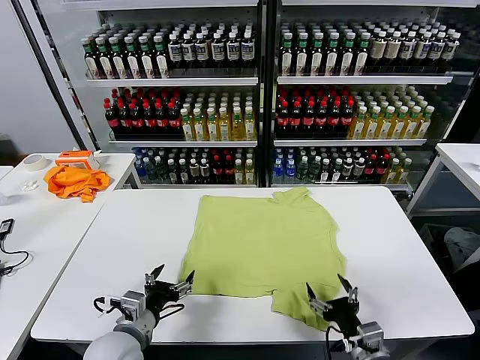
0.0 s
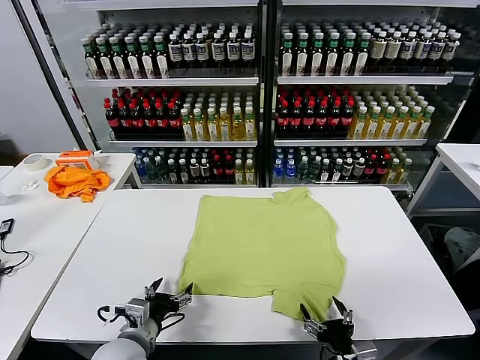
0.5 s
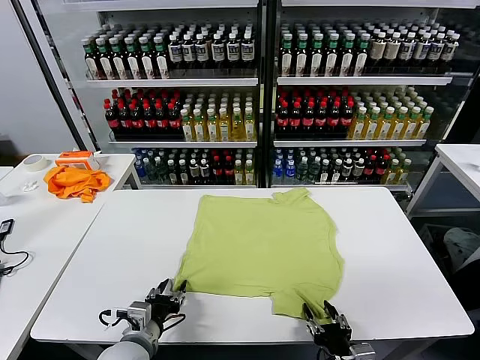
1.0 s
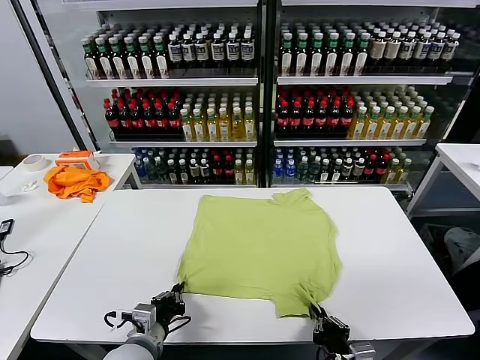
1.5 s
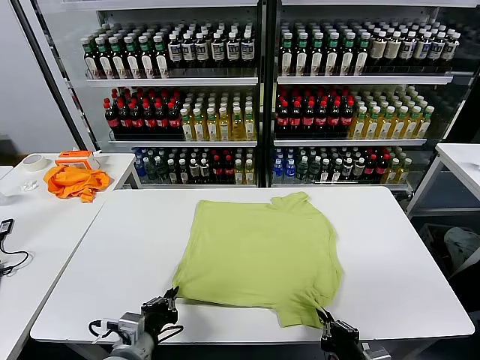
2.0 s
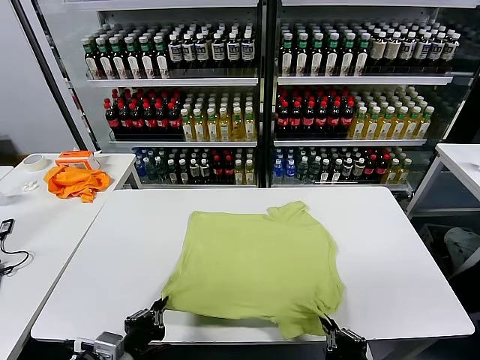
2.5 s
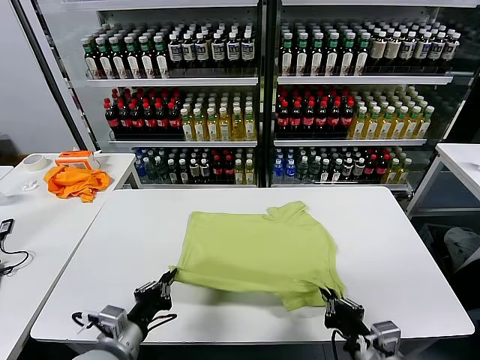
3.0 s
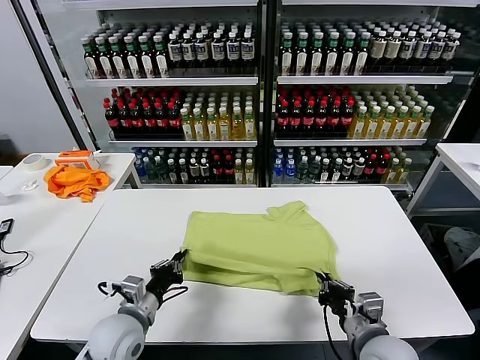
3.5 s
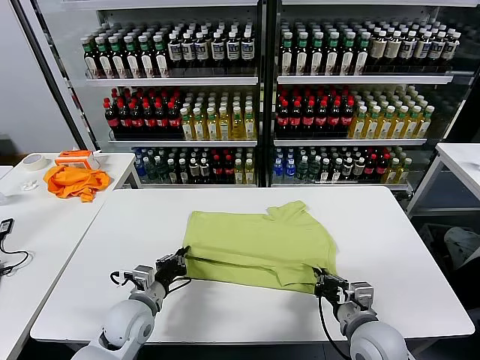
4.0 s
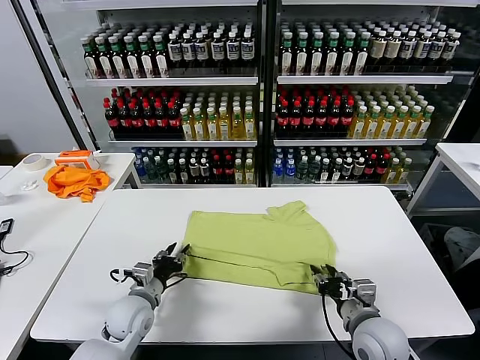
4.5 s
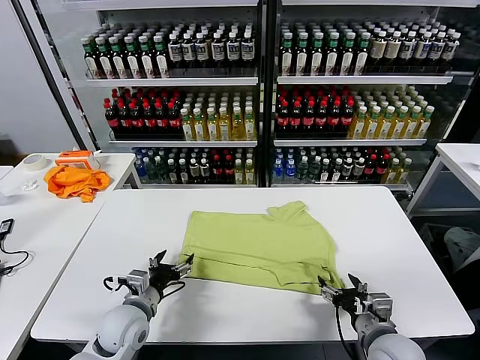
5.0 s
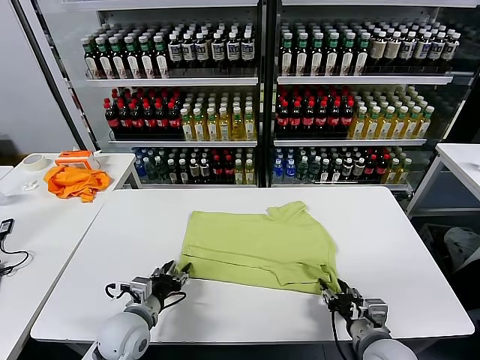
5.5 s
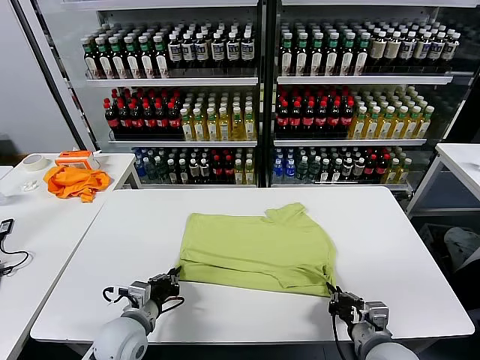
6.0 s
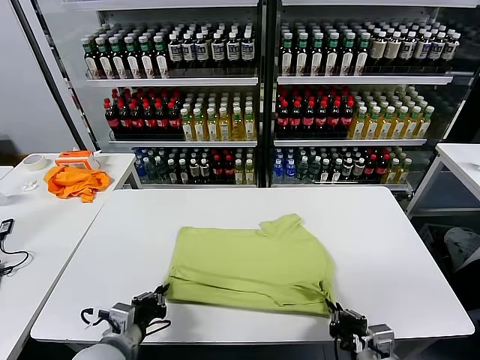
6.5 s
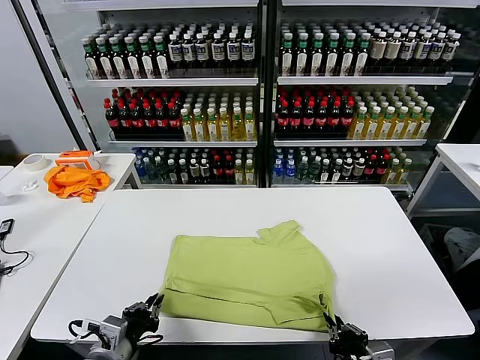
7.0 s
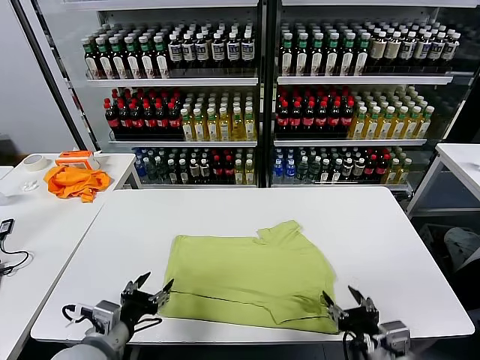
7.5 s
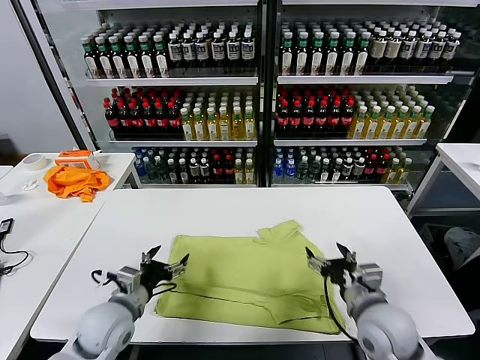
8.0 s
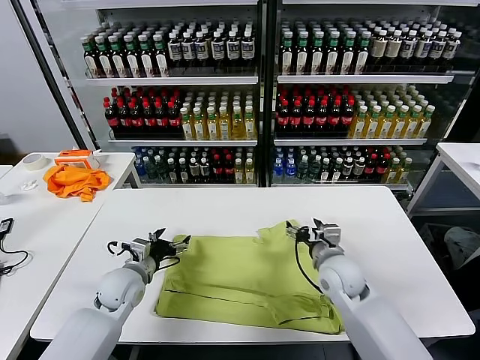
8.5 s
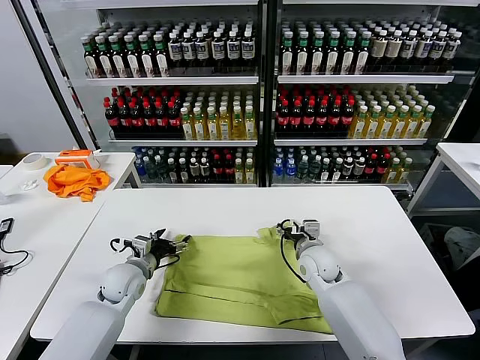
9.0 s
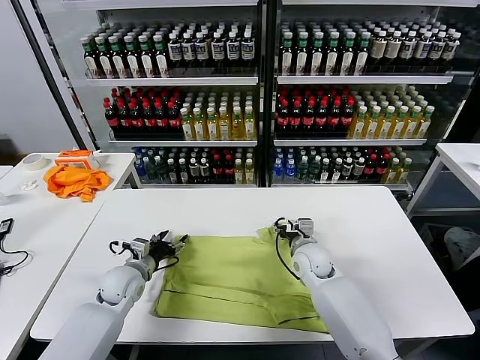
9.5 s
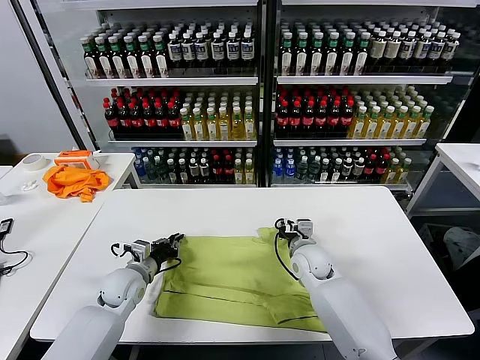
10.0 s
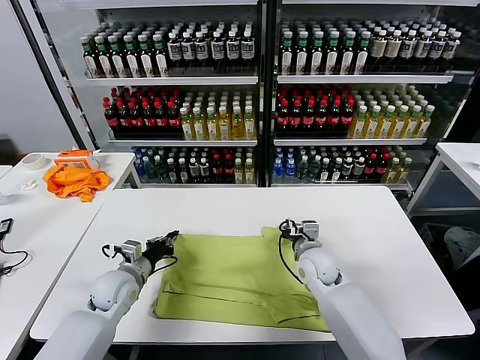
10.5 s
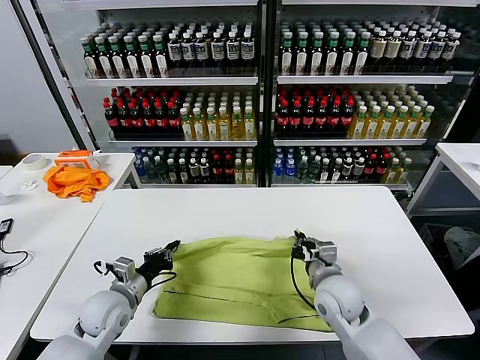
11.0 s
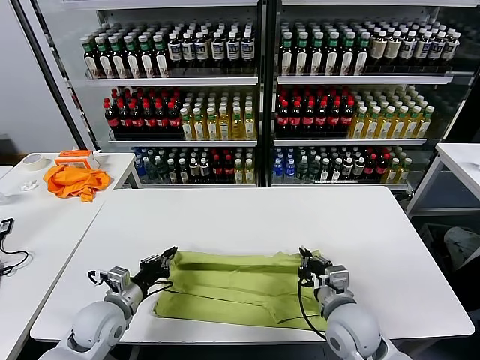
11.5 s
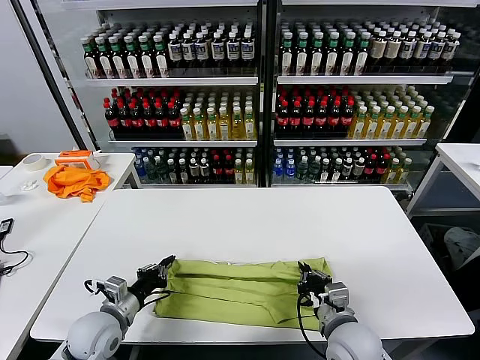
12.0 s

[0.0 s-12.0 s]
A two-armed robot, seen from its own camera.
Task of the whole recording: fold and organize the clothes.
Step, 0.0 to 1.0 s: use both grippers simultaneously to clamp the lower edge of the clothing fabric.
Step, 1.5 to 4.0 s: use both grippers to drag the lower edge of the fabric forward and fold it over the upper edge.
Step, 5.0 to 7.0 s: Drag the clothes downward with both gripper.
Step, 7.5 to 10.0 s: use both grippers simultaneously to clamp the upper edge of the clothing fabric.
2.0 to 4.0 s: Both grippers move forward, approximately 15 cm.
4.0 to 6.0 s: The two grippers go some 5 cm backward. The left gripper opens, then closes once more. Meanwhile the right gripper opens, then closes again.
6.0 to 8.0 s: The left gripper reaches some 10 cm backward, then returns, and opens. Meanwhile the right gripper travels forward by approximately 10 cm, and opens.
8.0 to 10.0 s: The left gripper heads forward and downward, covering roughly 10 cm, and closes. Meanwhile the right gripper is displaced forward, downward and to the left by approximately 20 cm, and closes up.
10.0 to 12.0 s: The right gripper moves backward, about 20 cm. The left gripper is displaced backward by roughly 10 cm.

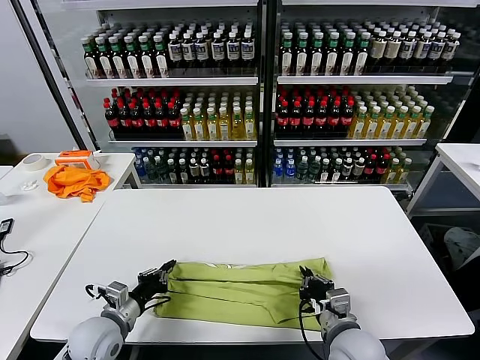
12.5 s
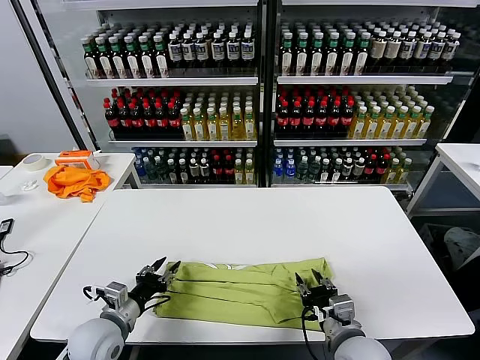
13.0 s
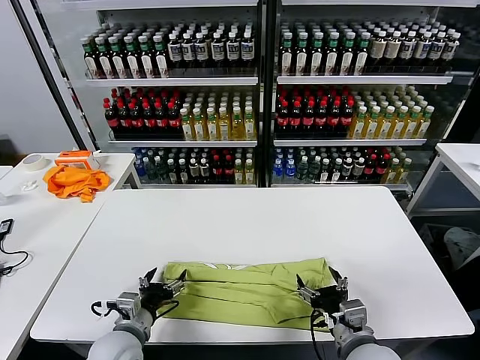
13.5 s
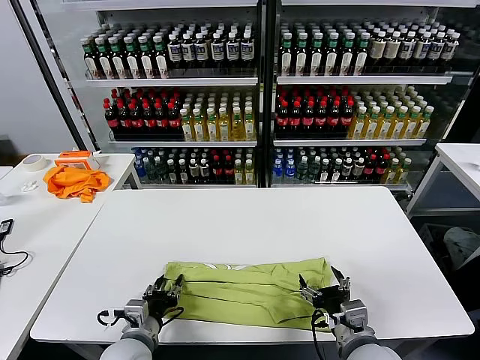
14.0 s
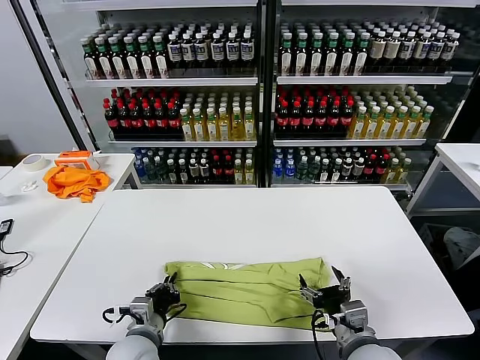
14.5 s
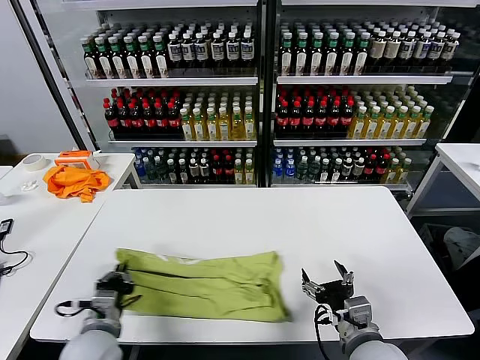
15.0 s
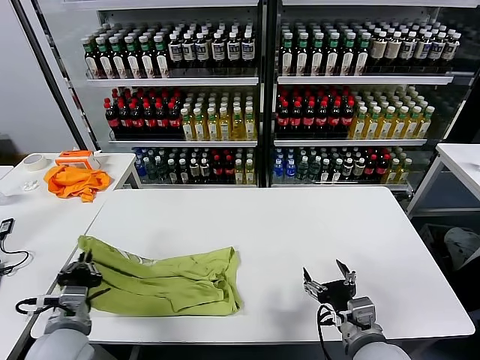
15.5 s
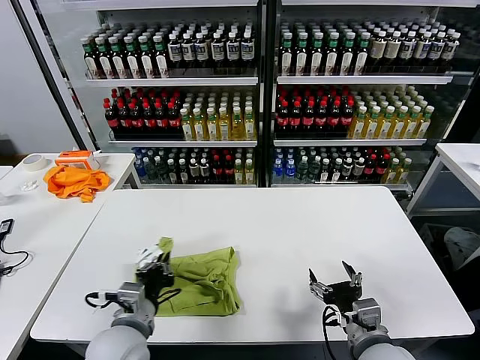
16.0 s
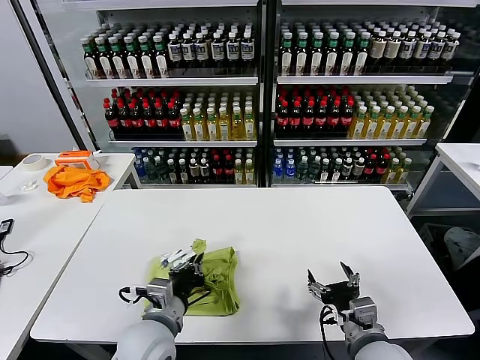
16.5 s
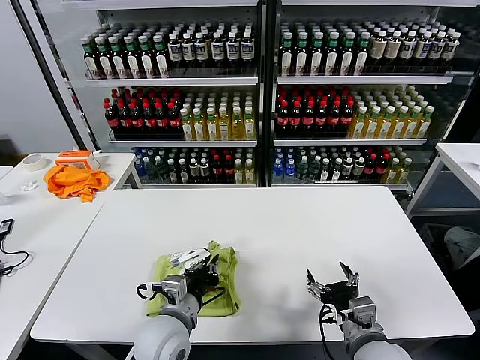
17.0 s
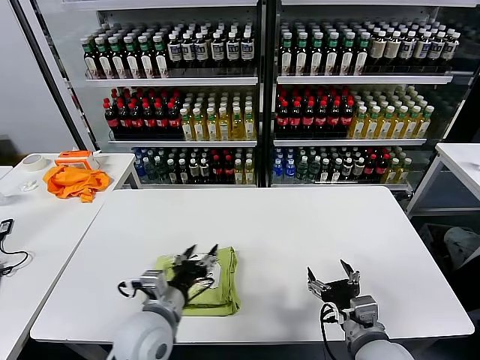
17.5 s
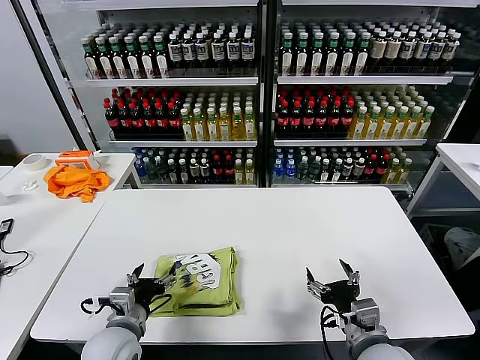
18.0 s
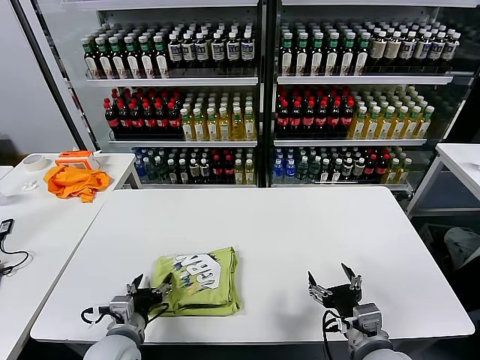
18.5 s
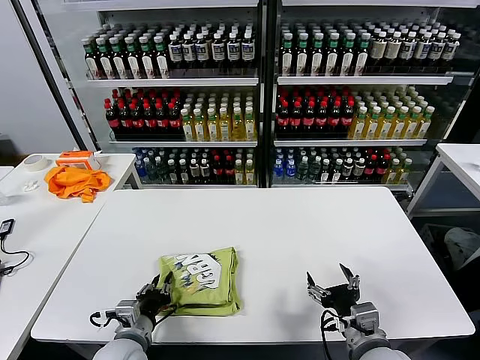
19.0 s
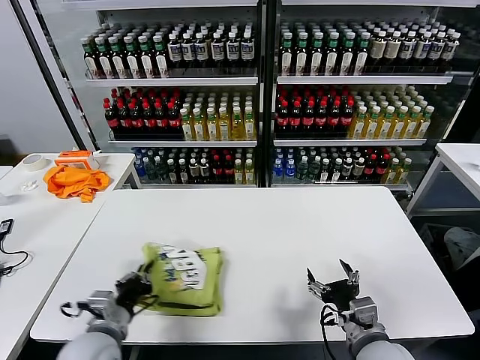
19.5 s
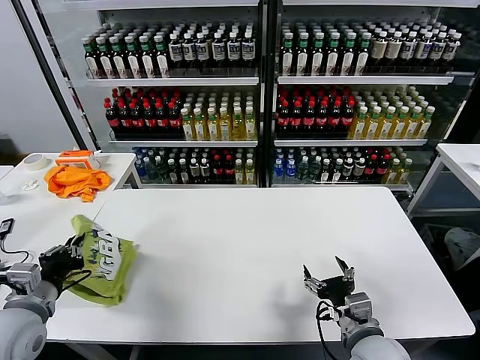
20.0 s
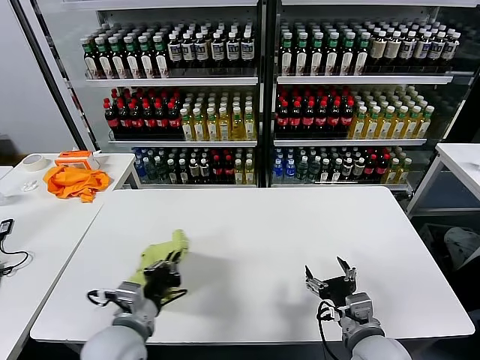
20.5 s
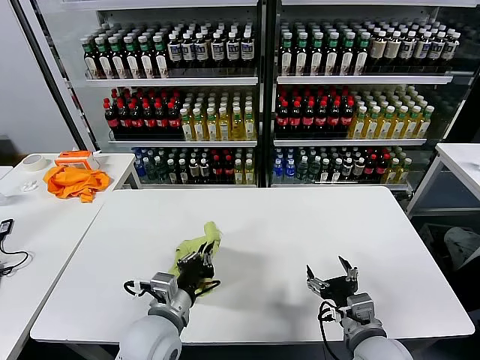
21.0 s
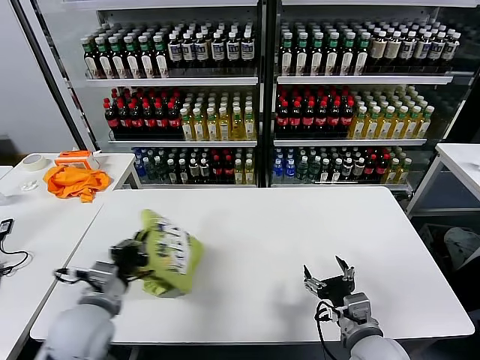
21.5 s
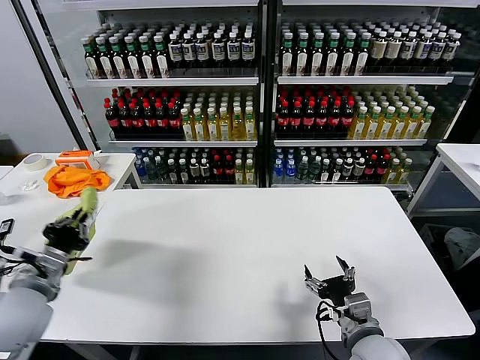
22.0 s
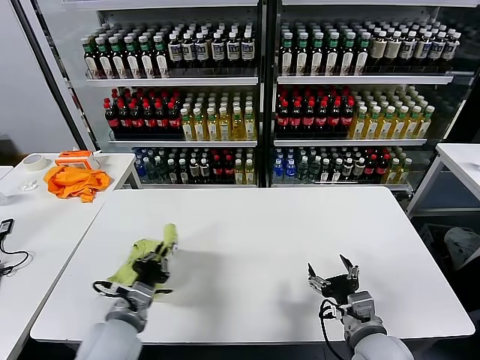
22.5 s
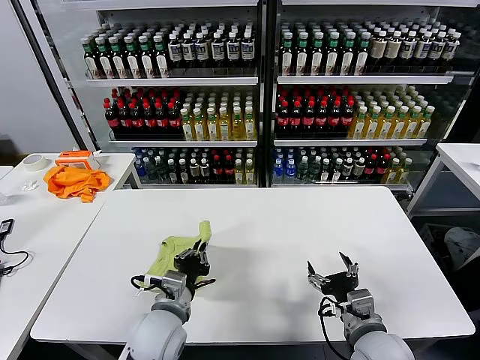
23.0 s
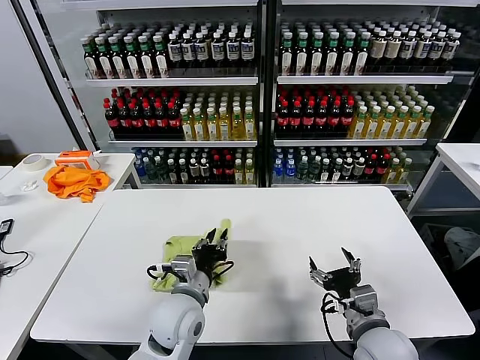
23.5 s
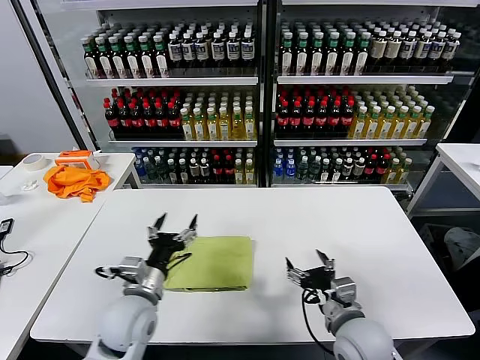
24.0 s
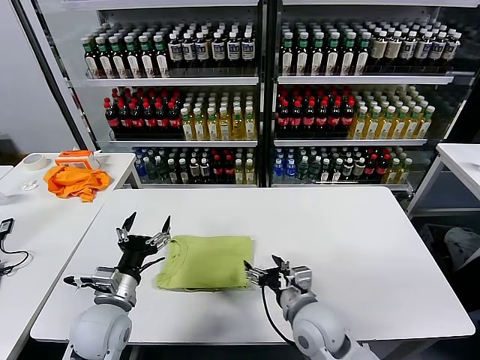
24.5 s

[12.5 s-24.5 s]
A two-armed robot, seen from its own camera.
Task of the whole recording: fold and organize the clothes.
Step, 13.0 to 14.0 s: use the left gripper to clamp the left edge of the fabric.
Step, 14.5 to 17.0 s: use the left gripper to drag the left edge of the fabric to the left and folds it over the right edge.
Step, 17.5 to 23.5 s: Flip the folded clothes over with left gripper.
12.5 to 14.5 s: The right gripper opens. Meanwhile the left gripper goes roughly 10 cm to the right, and opens and closes again.
14.5 to 16.5 s: The left gripper is displaced upward and to the right by about 10 cm.
16.5 to 18.5 s: The left gripper shifts roughly 10 cm to the left and downward, and opens.
18.5 to 20.5 s: The left gripper travels upward by approximately 10 cm, travels to the left and back again, about 15 cm each way, and closes up.
20.5 to 22.5 s: The left gripper moves left and right over about 20 cm, changing direction 2 times.
22.5 to 24.5 s: The left gripper reaches roughly 10 cm to the right, then returns, and opens its fingers. The right gripper is displaced to the left and forward by roughly 10 cm.

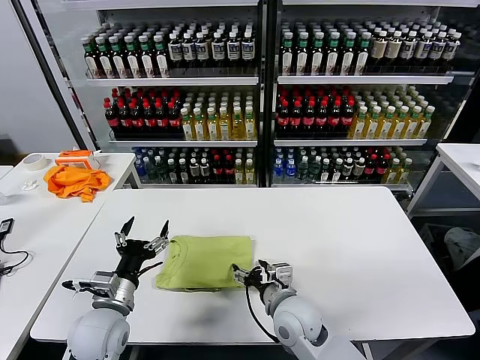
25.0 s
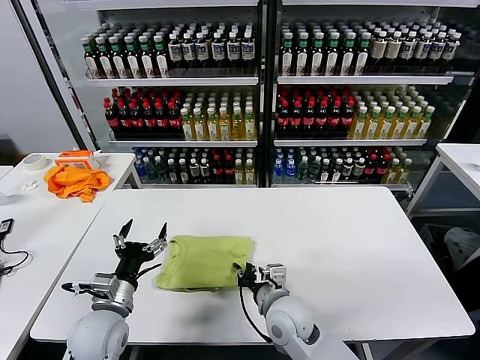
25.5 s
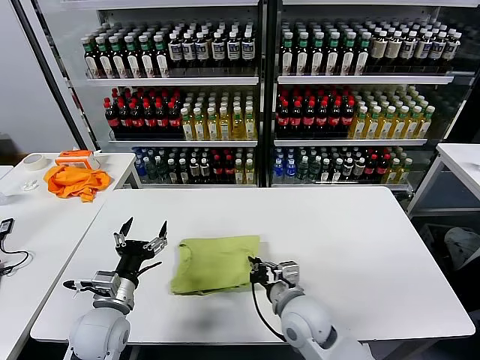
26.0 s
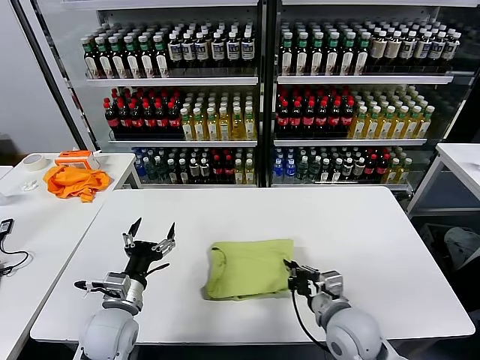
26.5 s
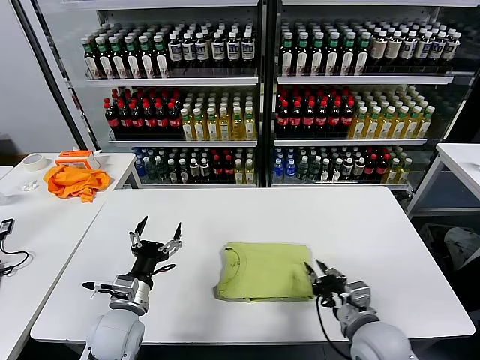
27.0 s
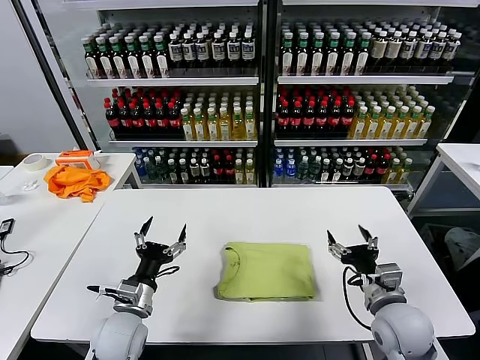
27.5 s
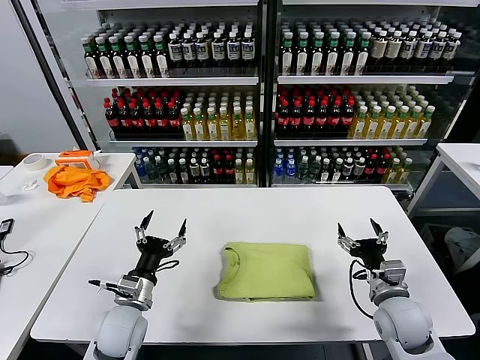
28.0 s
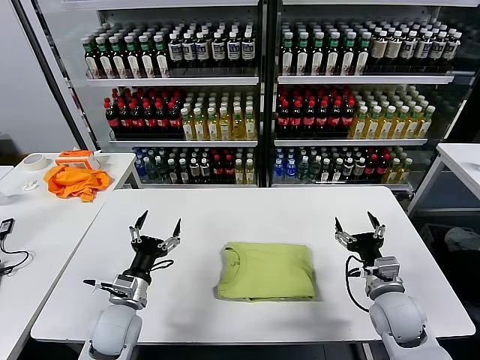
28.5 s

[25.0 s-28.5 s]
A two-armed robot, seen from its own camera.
Task of the whole recording: fold and organize the clothes.
Step, 25.0 to 27.0 s: Drag the clothes to the center of the table.
25.0 to 27.0 s: The right gripper shifts about 15 cm to the right and backward, and closes up.
27.0 to 28.5 s: The right gripper is displaced to the right and forward by roughly 10 cm, and opens.
